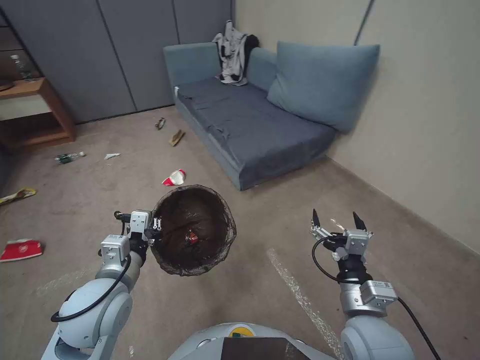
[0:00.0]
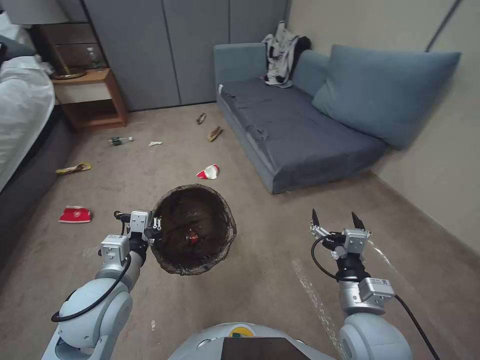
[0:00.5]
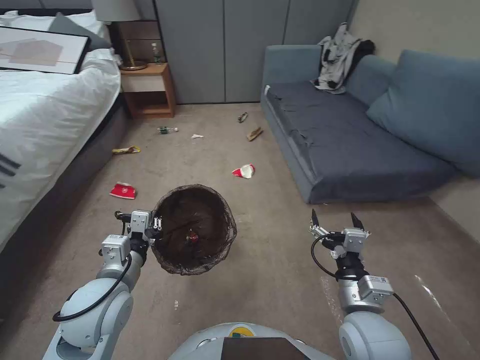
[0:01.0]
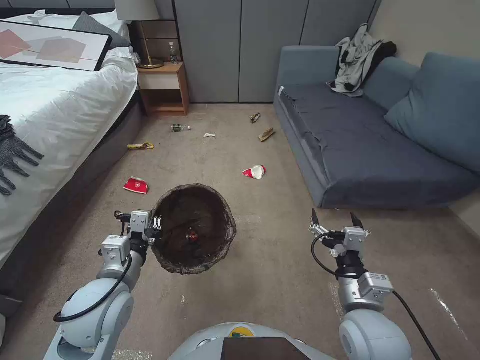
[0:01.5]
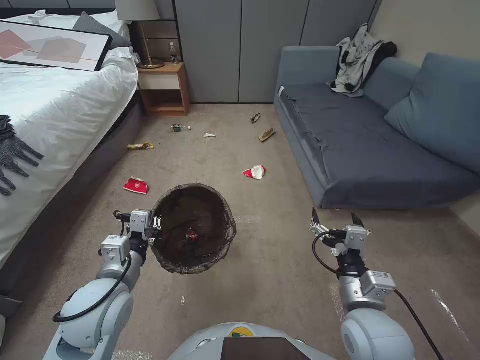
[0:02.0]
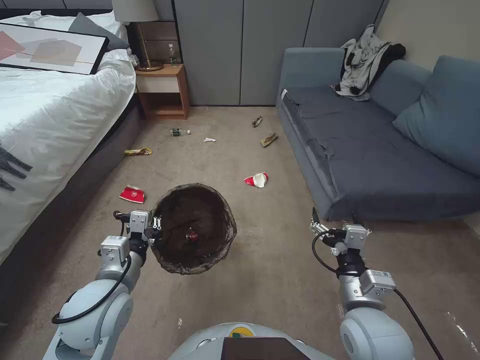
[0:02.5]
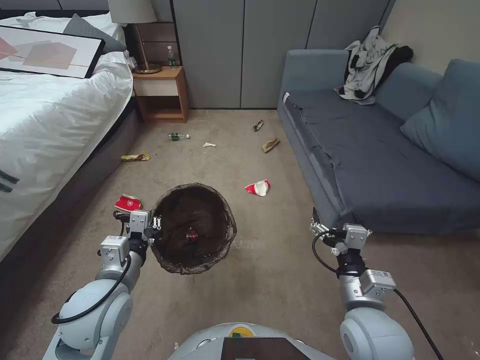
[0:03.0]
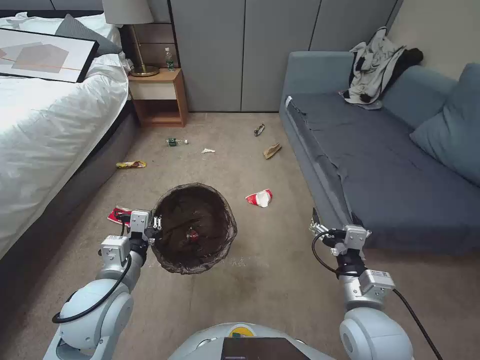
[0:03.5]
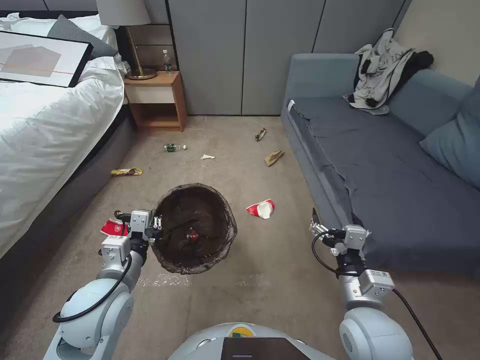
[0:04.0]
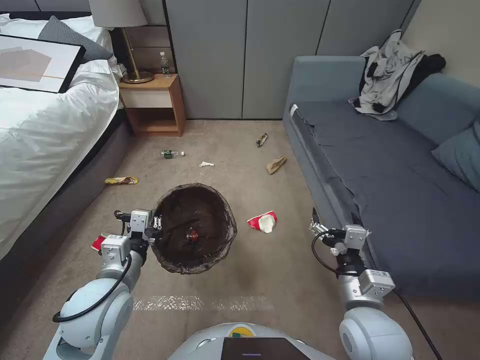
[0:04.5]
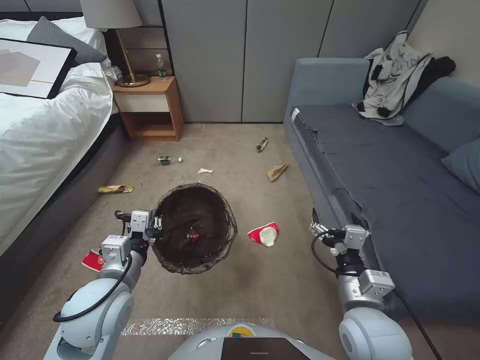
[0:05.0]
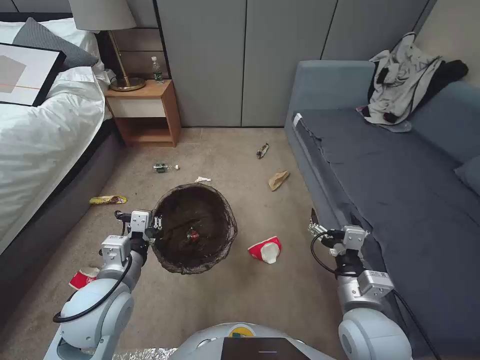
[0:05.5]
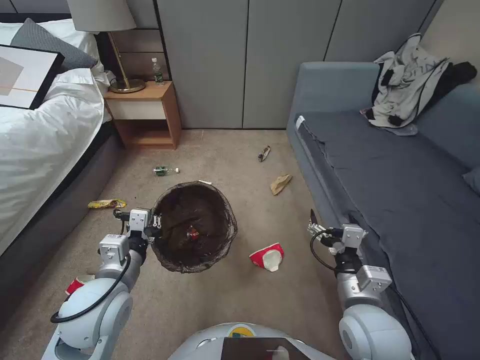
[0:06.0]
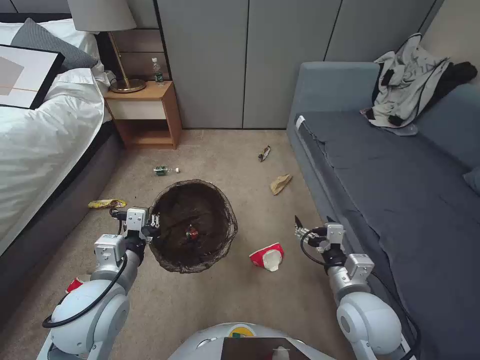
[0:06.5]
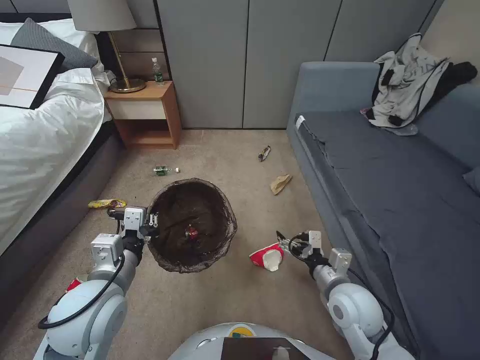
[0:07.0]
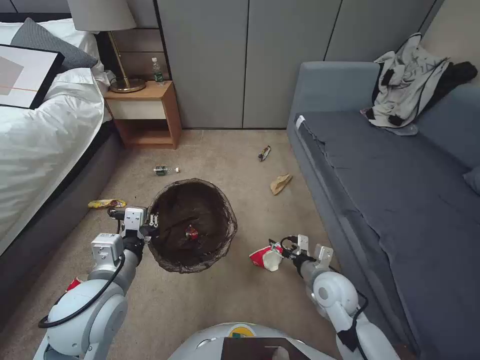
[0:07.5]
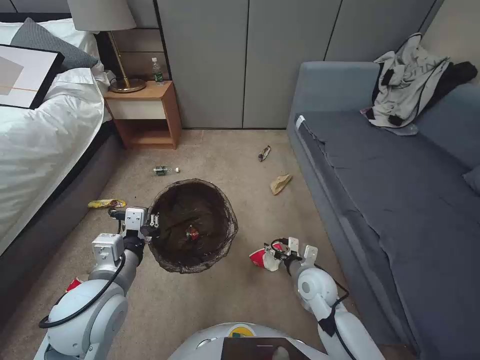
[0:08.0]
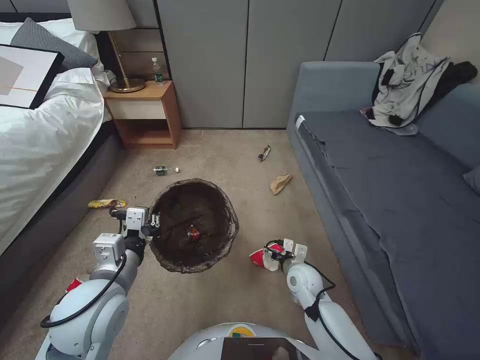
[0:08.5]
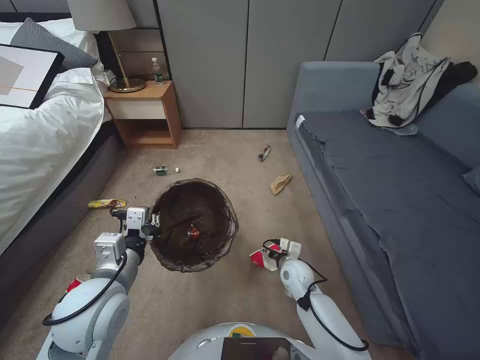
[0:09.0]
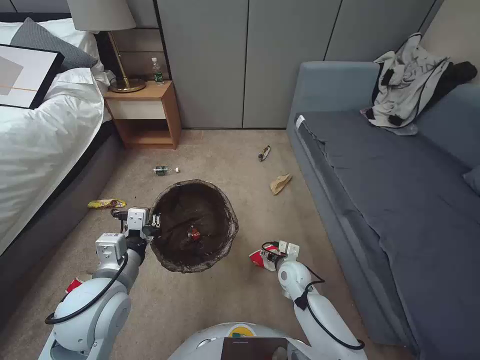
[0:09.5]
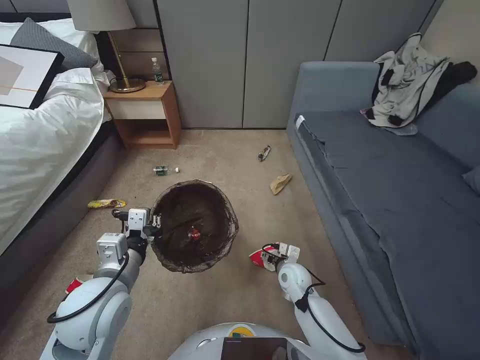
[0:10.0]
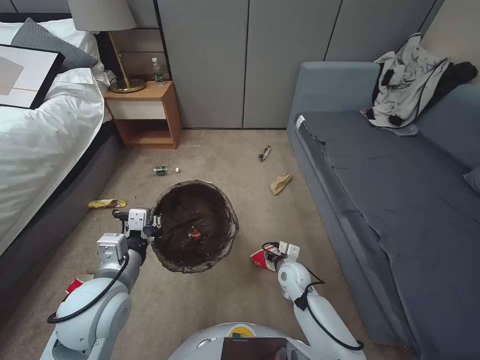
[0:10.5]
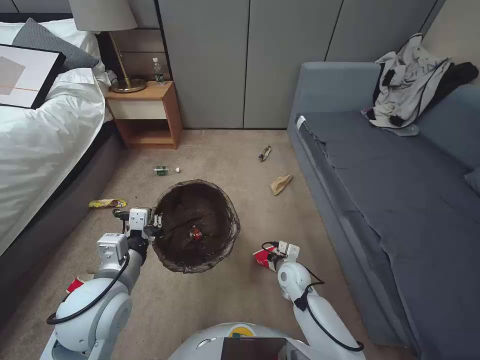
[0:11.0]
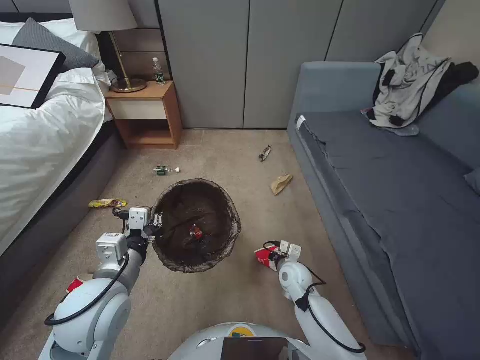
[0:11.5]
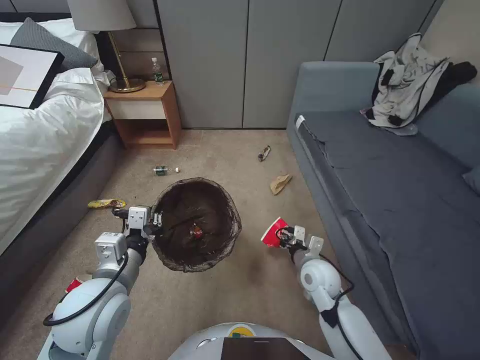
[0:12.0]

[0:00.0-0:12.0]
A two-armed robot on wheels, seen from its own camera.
Task of the whole recording: Pick up the trash bin, then pick up the garbage from the floor and place it into the trash bin.
0:06.0 to 0:08.0: The right gripper travels downward and forward by about 15 cm.
0:08.0 to 0:10.0: The right gripper is displaced downward by roughly 5 cm.
0:10.0 to 0:12.0: The right gripper moves upward, about 10 cm, and closes.

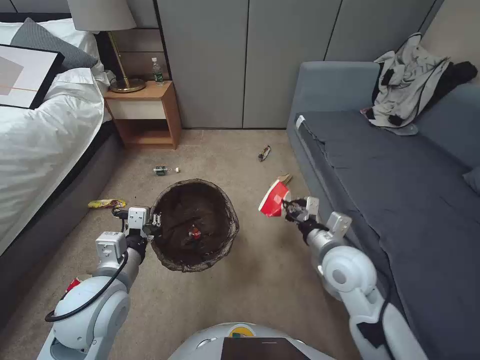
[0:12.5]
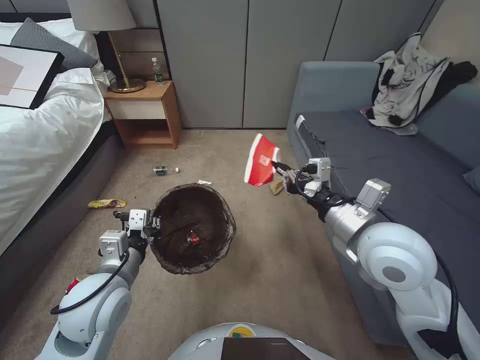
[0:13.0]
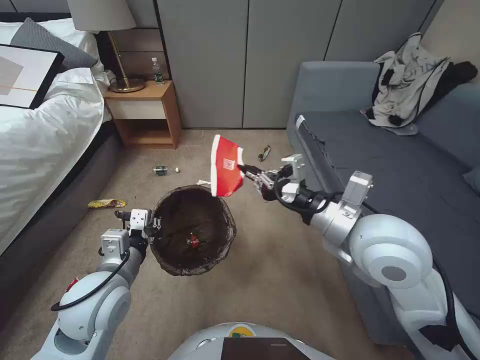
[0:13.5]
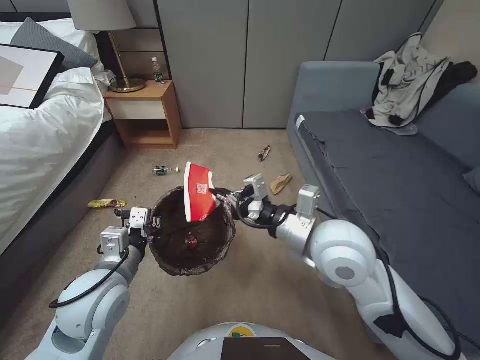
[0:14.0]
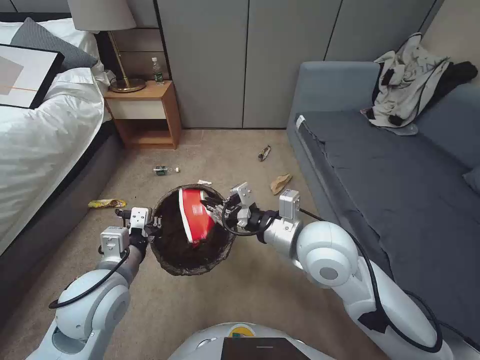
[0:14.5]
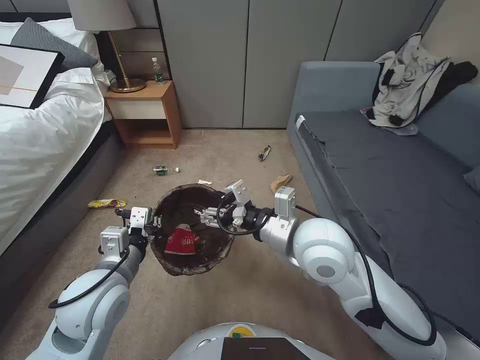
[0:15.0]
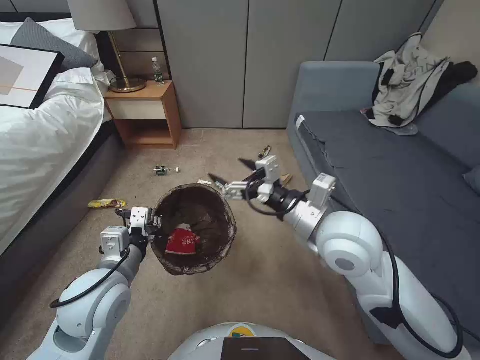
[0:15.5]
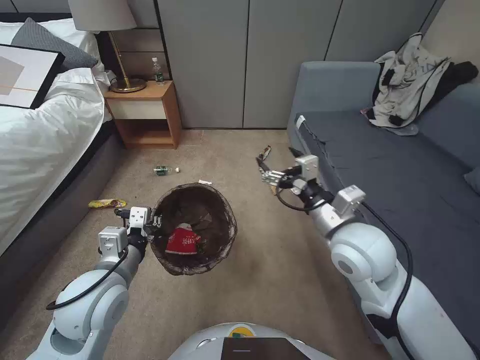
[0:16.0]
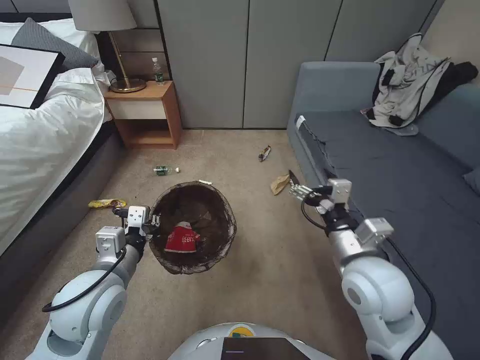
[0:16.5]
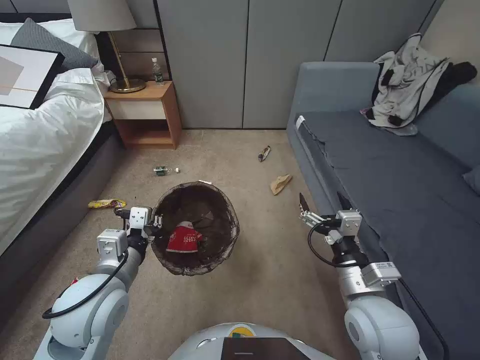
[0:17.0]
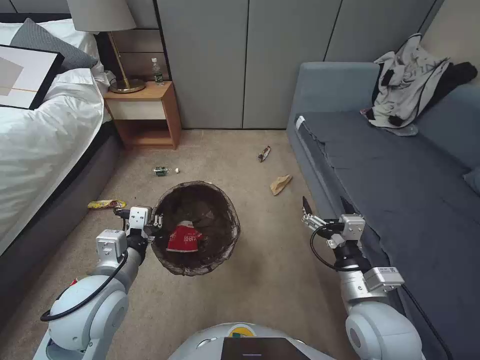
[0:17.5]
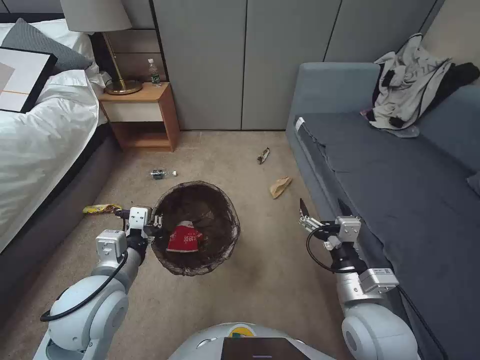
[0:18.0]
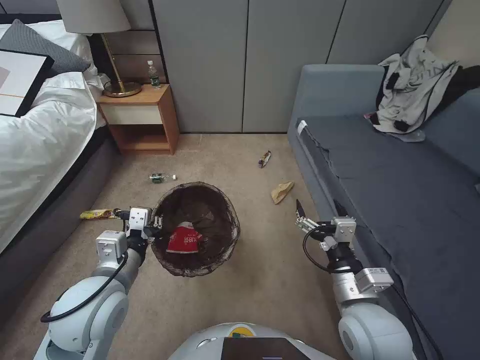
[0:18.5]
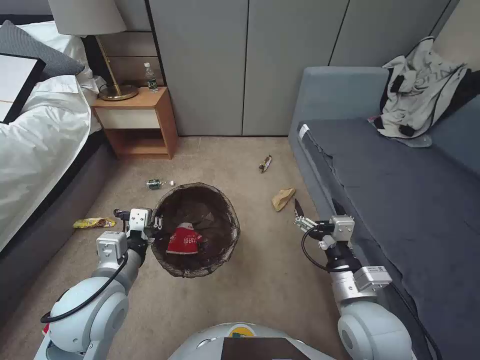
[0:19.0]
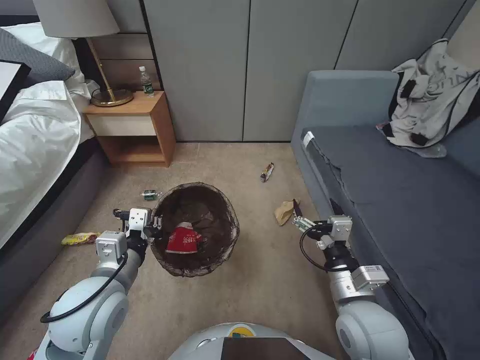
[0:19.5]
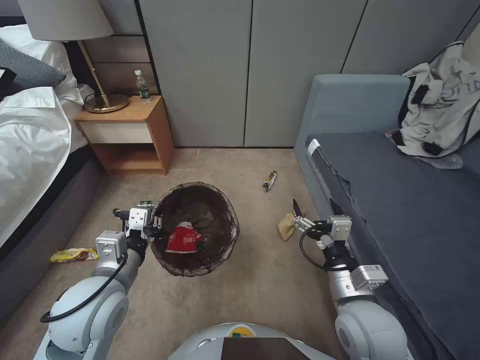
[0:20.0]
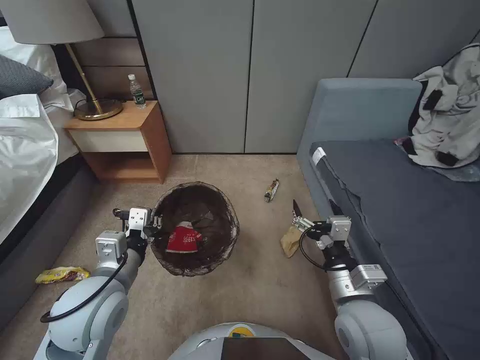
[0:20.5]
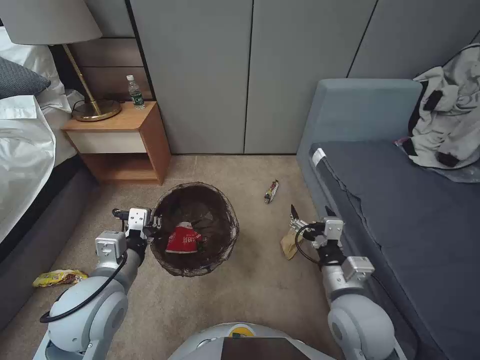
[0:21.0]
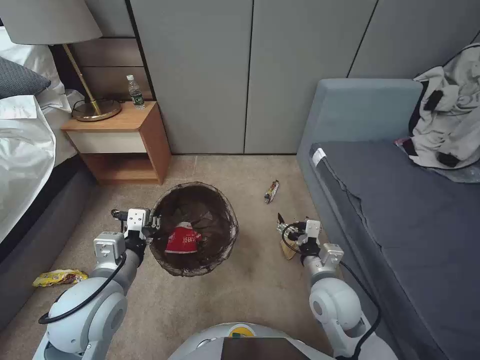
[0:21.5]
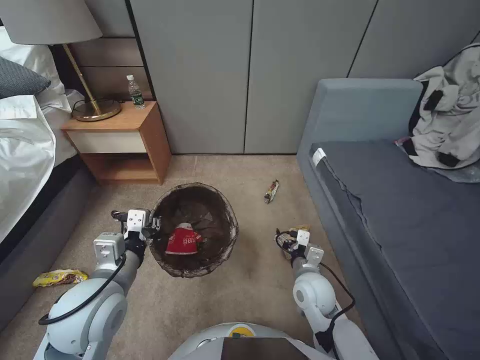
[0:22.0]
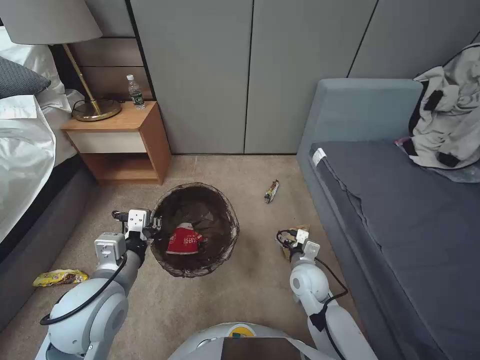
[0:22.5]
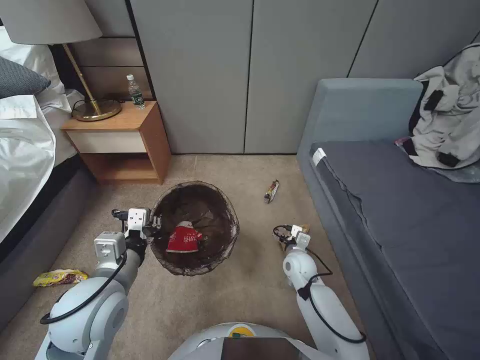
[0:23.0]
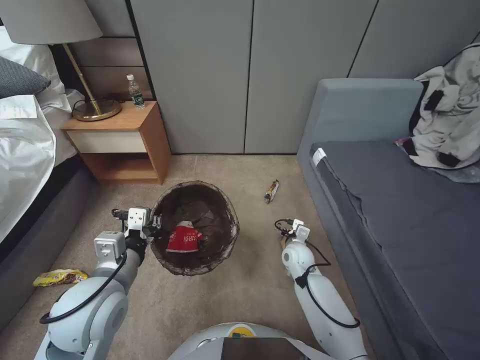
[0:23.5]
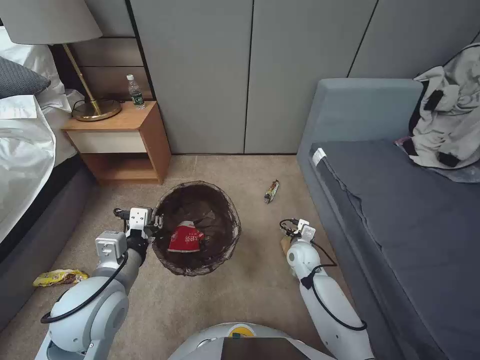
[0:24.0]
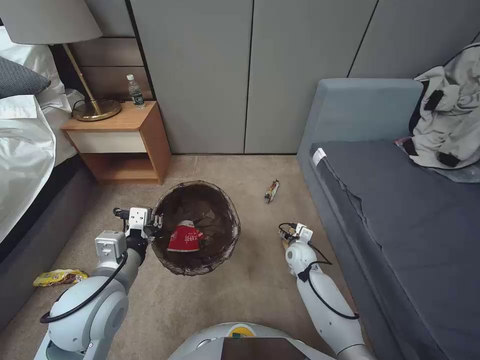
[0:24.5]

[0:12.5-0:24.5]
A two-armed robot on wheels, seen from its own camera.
Task of the whole recording: Pick up the trash bin, then pick up the garbage from the floor and place it into the trash bin.
0:12.5 to 0:14.5: The right gripper is displaced upward and to the left by roughly 15 cm.
0:14.5 to 0:16.5: The right gripper moves to the right, some 10 cm, and opens.
0:16.5 to 0:18.5: The right gripper is displaced backward and downward by approximately 10 cm.
0:20.5 to 0:22.5: The right gripper is displaced downward and forward by about 20 cm.
0:22.5 to 0:24.5: The right gripper travels forward and downward by about 10 cm.

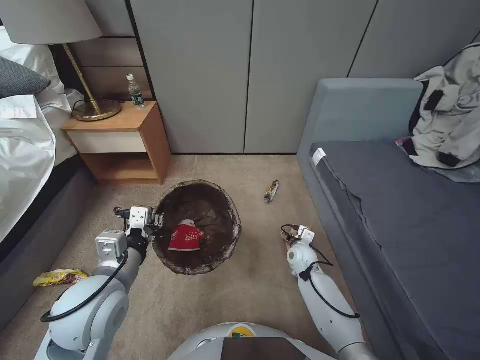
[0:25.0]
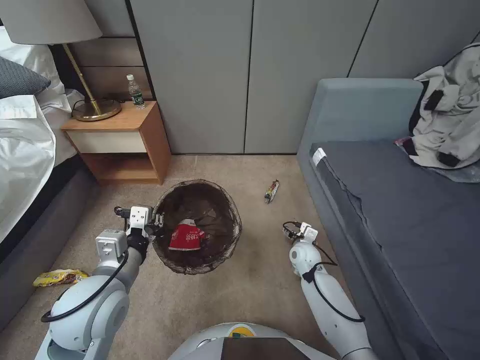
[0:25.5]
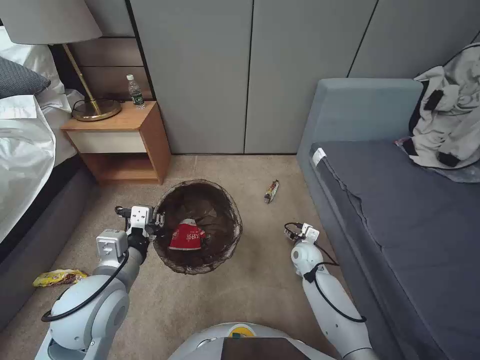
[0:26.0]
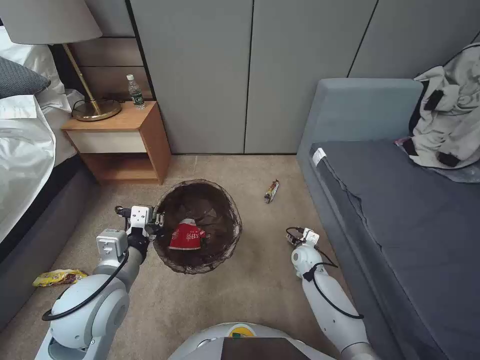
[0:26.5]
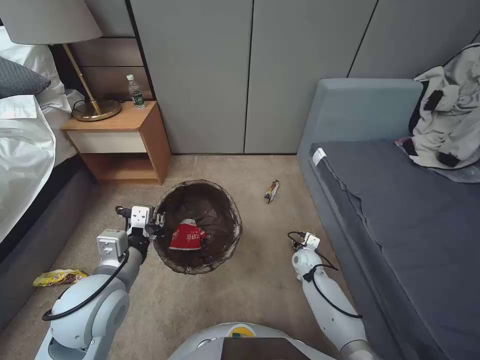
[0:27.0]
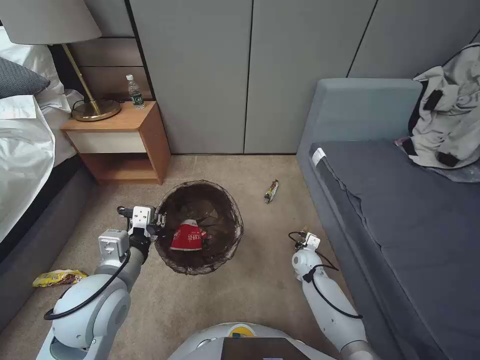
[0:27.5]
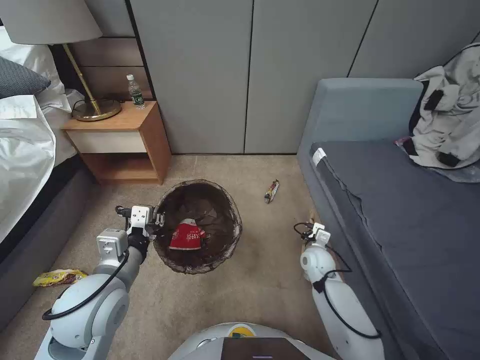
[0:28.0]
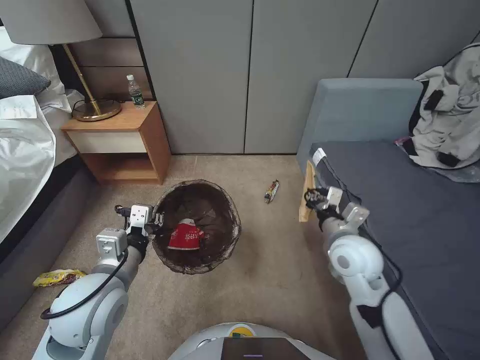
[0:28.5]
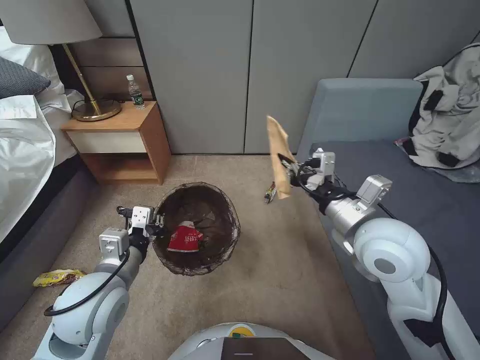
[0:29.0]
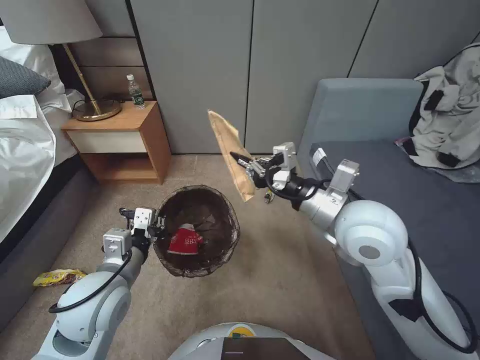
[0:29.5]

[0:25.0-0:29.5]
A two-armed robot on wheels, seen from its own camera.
Task of the whole recording: Pick up the trash bin, then pick up the garbage from the floor and place it into the trash bin.
0:25.0 to 0:27.0: The grippers make only small movements.
0:27.0 to 0:29.5: The right gripper travels upward by approximately 40 cm, and closes its fingers.
